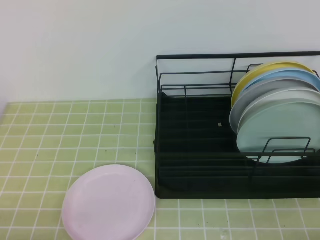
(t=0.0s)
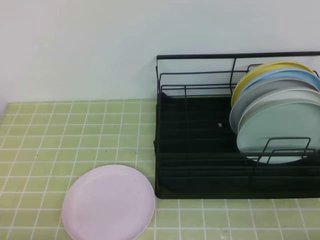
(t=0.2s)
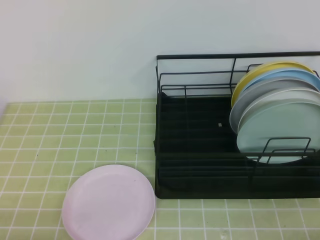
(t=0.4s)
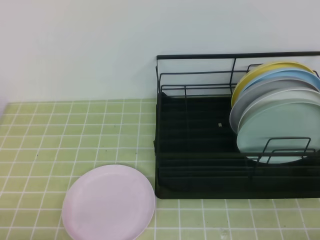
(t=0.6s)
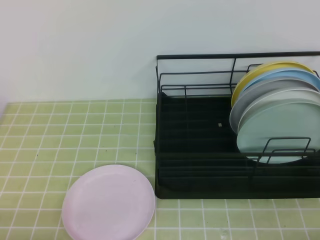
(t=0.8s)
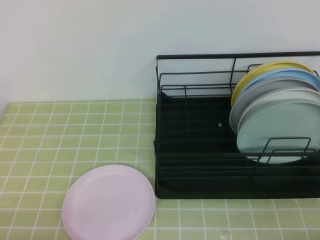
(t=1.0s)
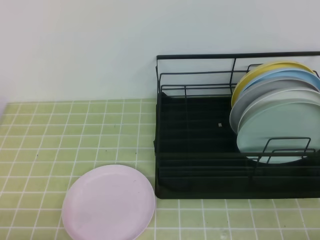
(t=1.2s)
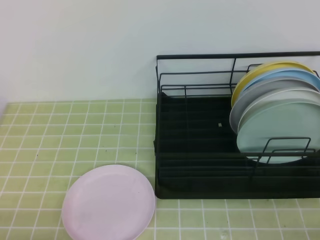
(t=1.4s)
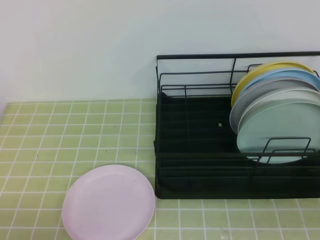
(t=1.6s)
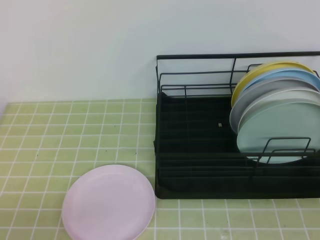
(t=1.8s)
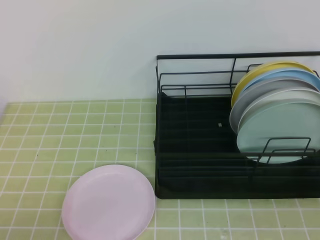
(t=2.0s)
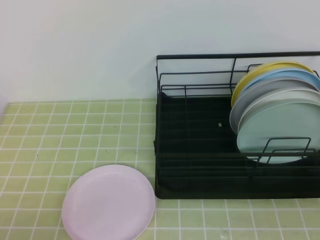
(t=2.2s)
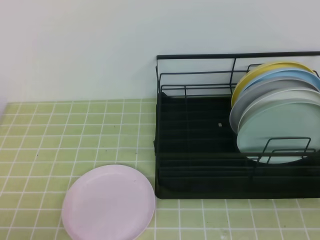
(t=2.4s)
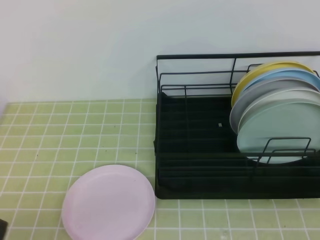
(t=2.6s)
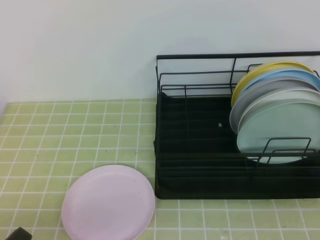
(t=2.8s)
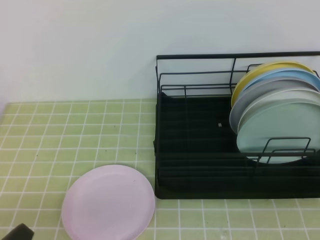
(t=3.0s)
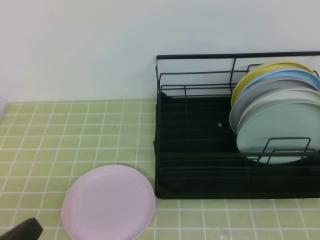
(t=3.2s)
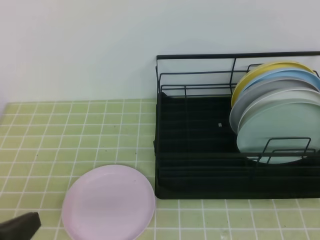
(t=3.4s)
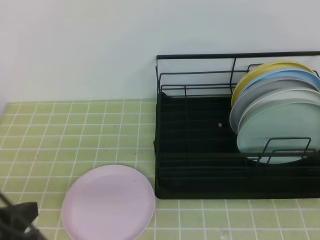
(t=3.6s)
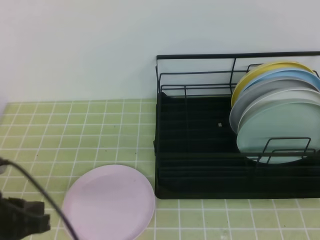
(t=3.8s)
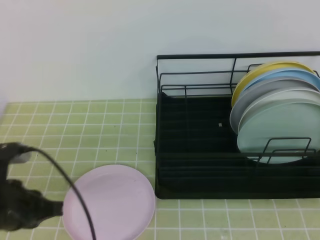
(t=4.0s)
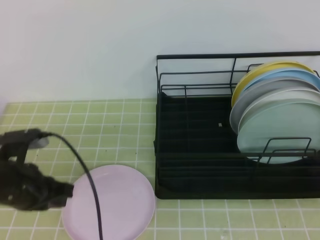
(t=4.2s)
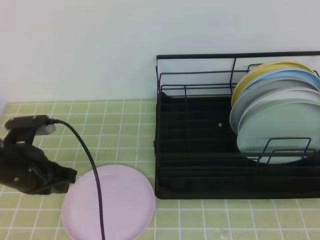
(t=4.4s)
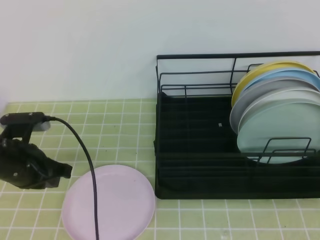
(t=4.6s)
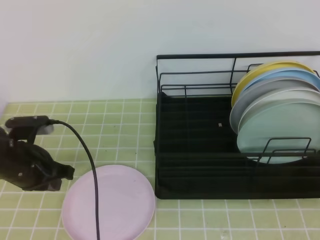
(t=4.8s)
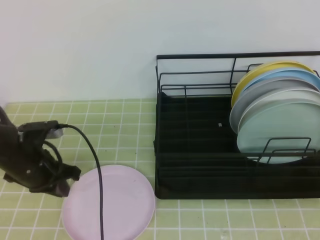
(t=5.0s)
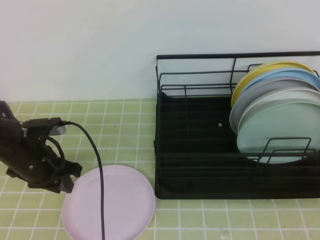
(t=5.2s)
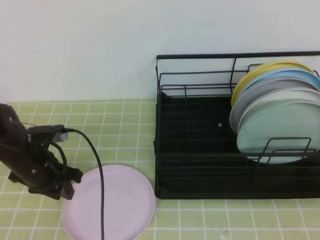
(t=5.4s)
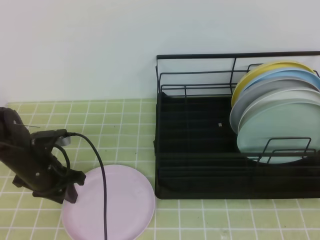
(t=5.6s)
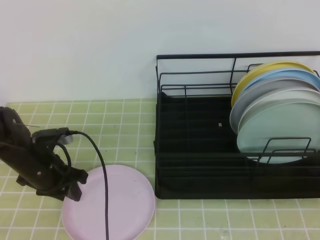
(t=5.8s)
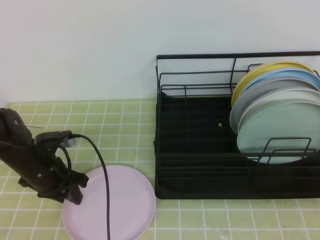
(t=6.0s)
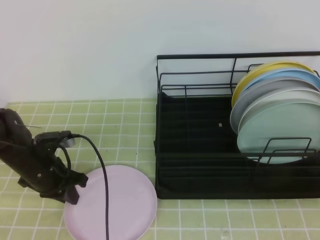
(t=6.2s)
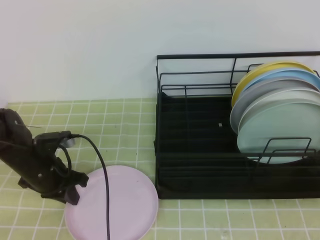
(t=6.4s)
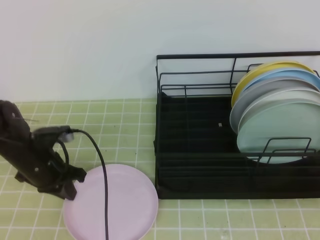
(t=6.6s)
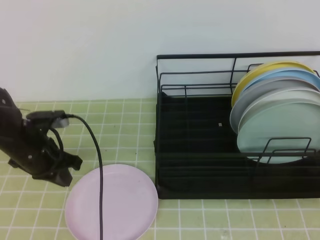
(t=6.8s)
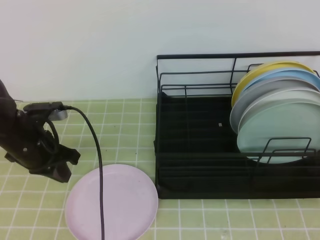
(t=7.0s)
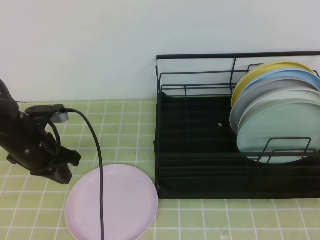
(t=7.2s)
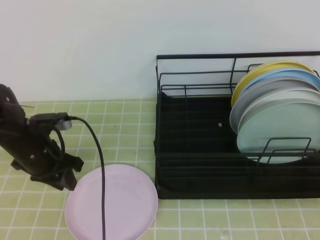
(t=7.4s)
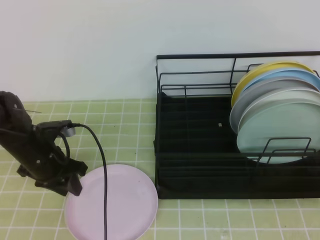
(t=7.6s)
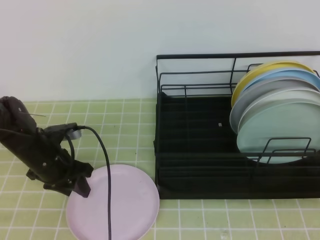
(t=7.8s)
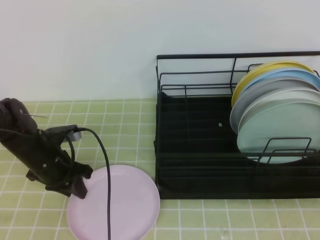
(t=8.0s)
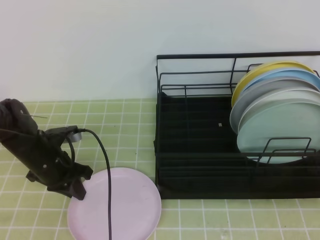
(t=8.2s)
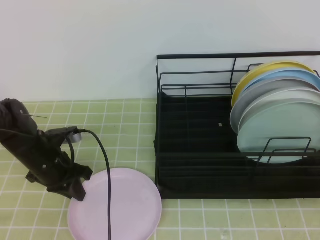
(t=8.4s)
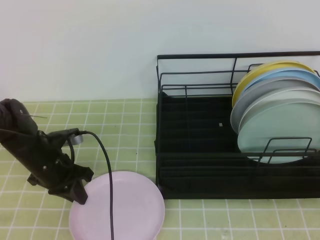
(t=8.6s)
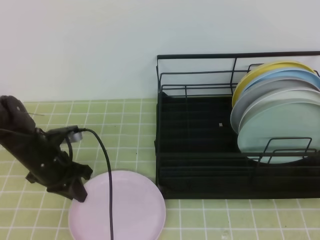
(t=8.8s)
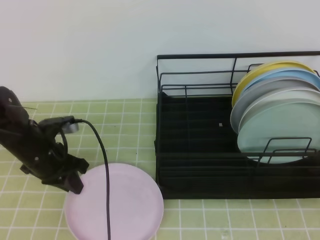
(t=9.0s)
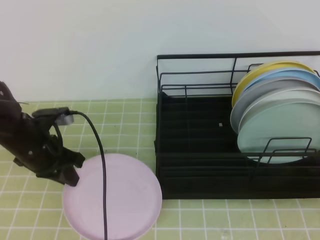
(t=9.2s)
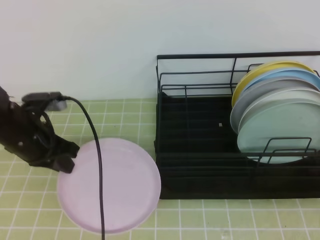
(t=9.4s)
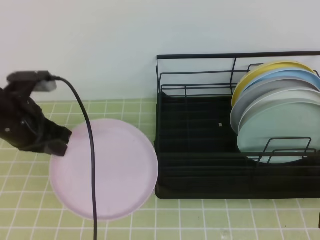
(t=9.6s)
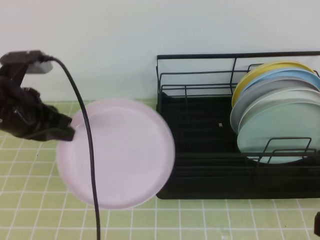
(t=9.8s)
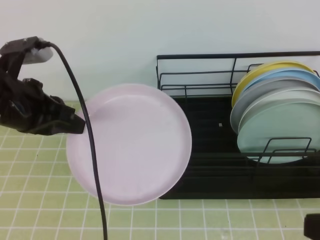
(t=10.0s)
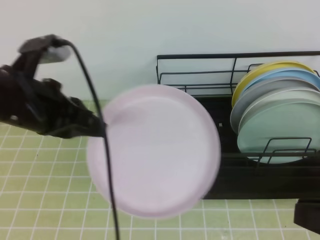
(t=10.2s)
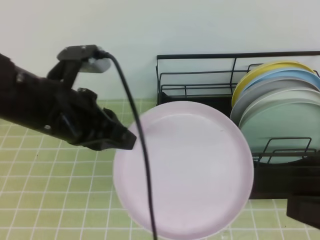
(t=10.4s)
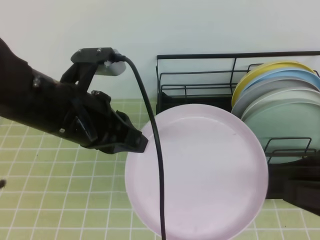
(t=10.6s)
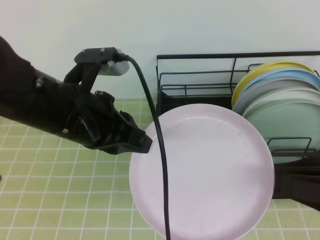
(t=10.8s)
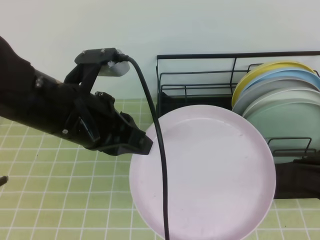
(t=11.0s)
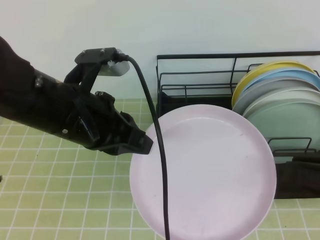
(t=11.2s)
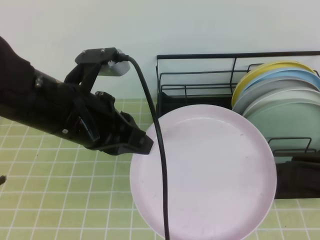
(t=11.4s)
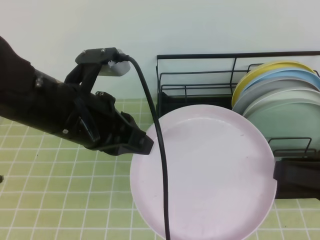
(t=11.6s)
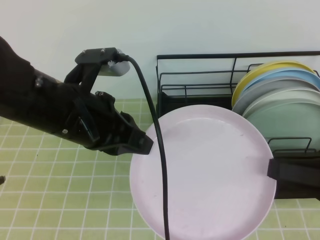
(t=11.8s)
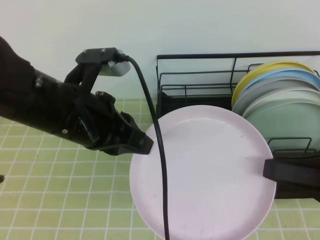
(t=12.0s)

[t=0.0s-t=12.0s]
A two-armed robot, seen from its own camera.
Step, t=0.0s to t=7.0s: Left grab the pink plate.
t=3.0s to t=4.4s: The left gripper shifts roughly 20 cm forward.
t=4.4s to t=6.0s: The left gripper moves downward and forward, some 10 cm, and opens up.
t=6.0s to t=7.6s: The left gripper closes, then reopens.
t=7.6s to t=9.0s: The left gripper closes.
t=9.0s to t=10.4s: The left gripper heads upward, backward and to the right, covering about 20 cm, while the right gripper opens its fingers.
t=10.4s to t=12.0s: The right gripper shifts approximately 5 cm forward.

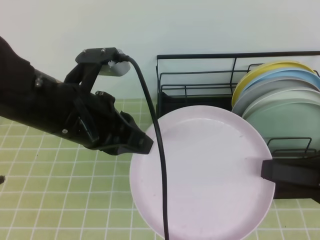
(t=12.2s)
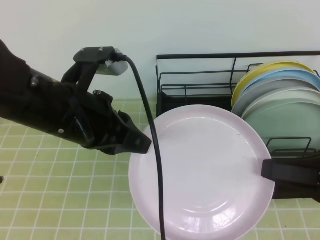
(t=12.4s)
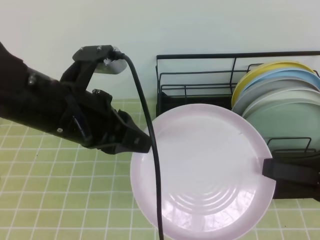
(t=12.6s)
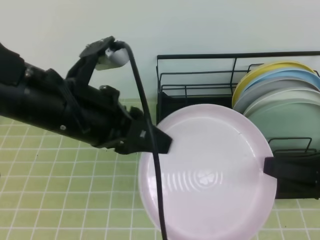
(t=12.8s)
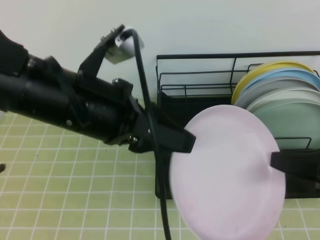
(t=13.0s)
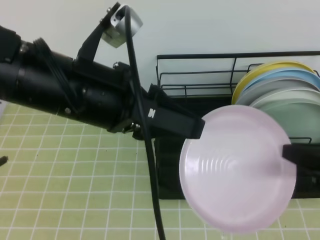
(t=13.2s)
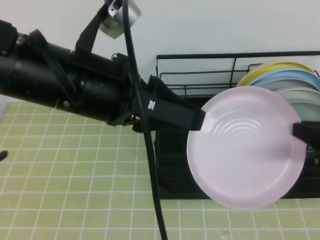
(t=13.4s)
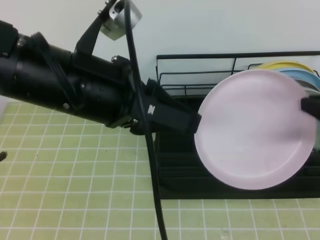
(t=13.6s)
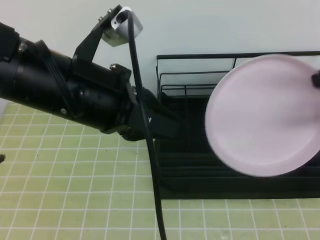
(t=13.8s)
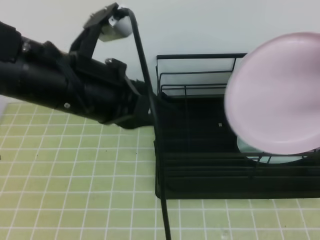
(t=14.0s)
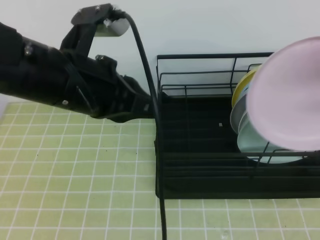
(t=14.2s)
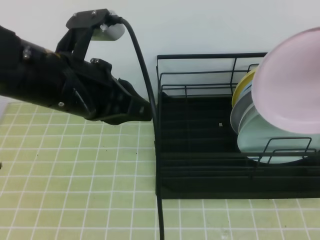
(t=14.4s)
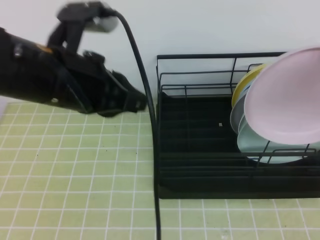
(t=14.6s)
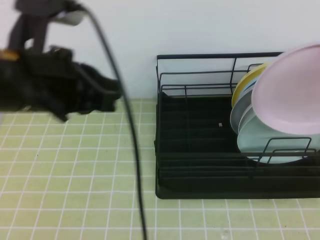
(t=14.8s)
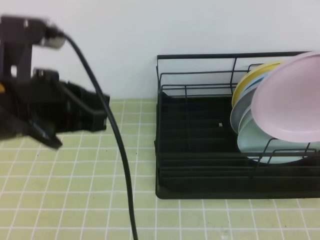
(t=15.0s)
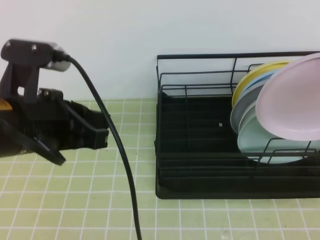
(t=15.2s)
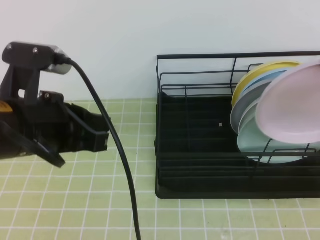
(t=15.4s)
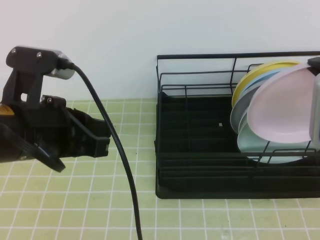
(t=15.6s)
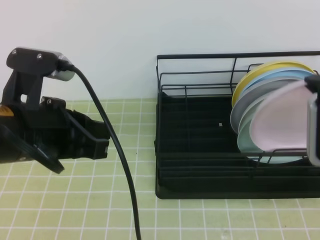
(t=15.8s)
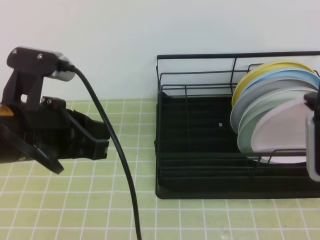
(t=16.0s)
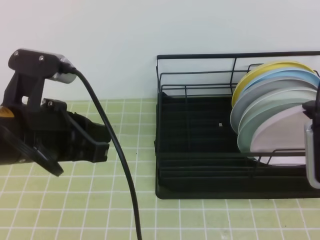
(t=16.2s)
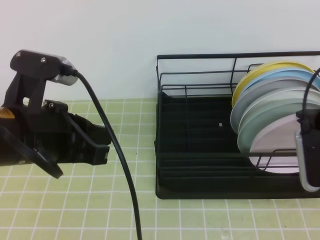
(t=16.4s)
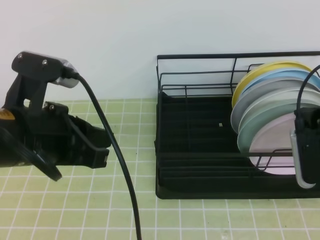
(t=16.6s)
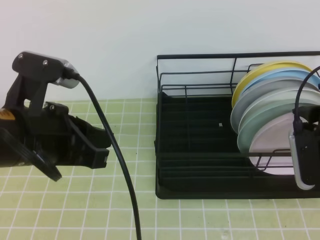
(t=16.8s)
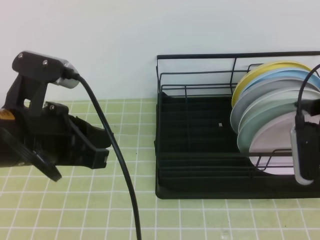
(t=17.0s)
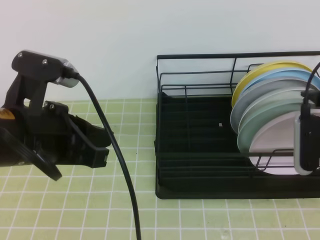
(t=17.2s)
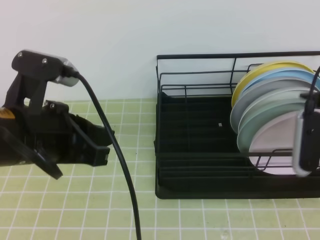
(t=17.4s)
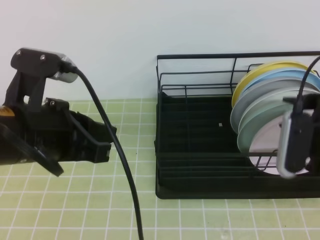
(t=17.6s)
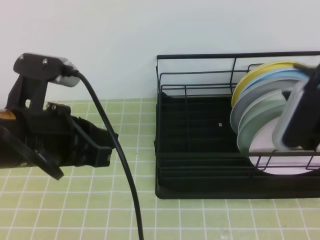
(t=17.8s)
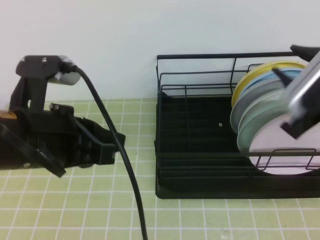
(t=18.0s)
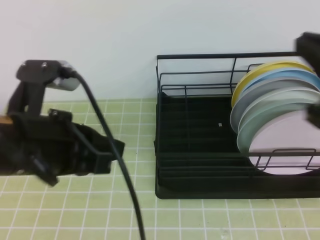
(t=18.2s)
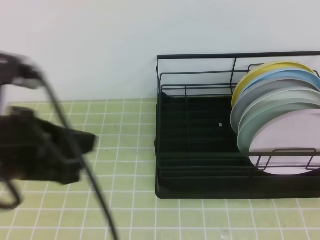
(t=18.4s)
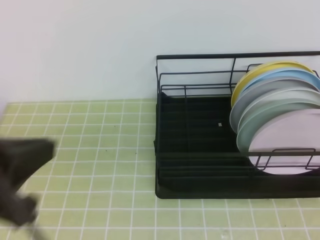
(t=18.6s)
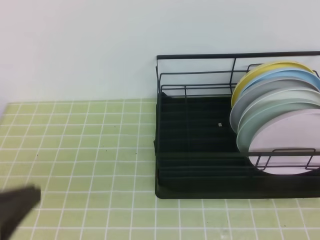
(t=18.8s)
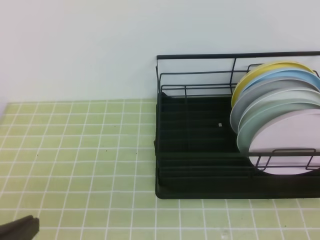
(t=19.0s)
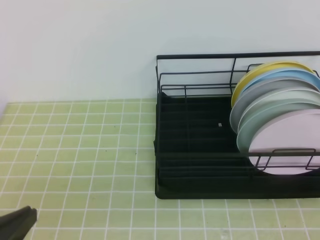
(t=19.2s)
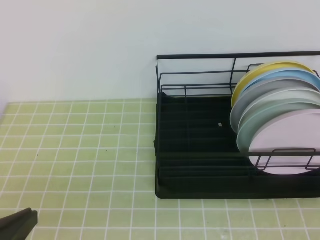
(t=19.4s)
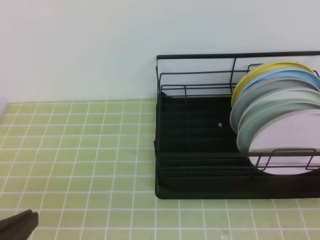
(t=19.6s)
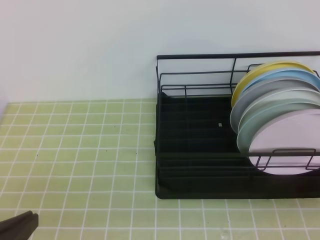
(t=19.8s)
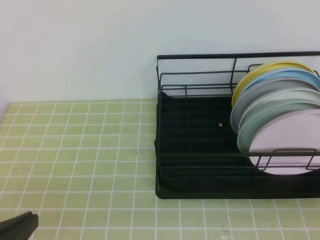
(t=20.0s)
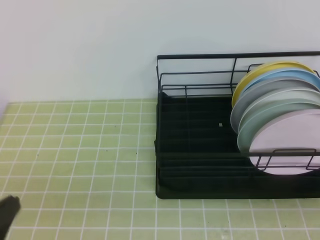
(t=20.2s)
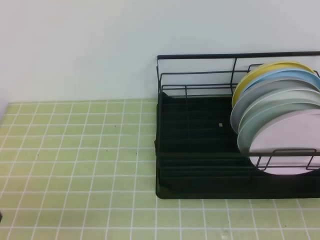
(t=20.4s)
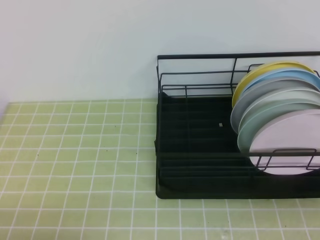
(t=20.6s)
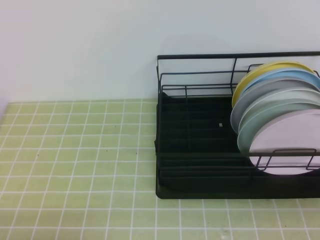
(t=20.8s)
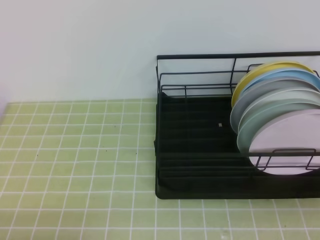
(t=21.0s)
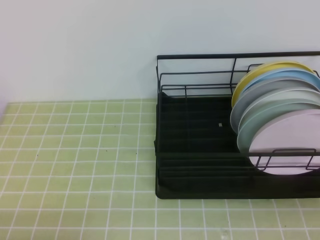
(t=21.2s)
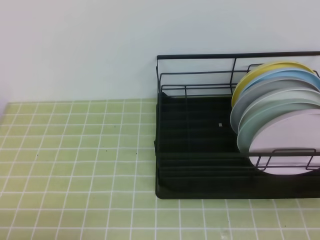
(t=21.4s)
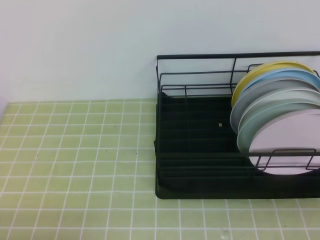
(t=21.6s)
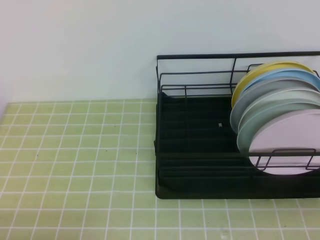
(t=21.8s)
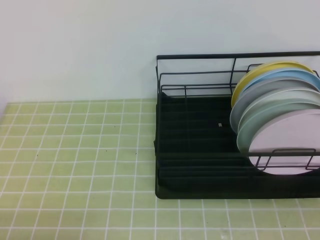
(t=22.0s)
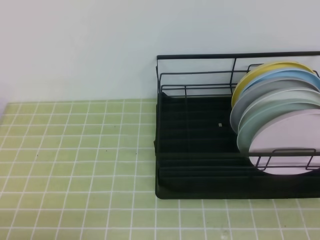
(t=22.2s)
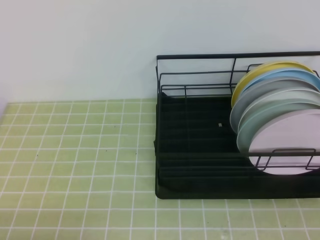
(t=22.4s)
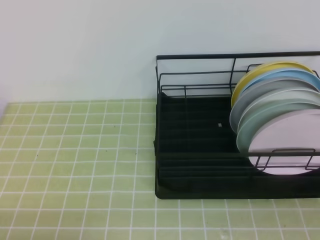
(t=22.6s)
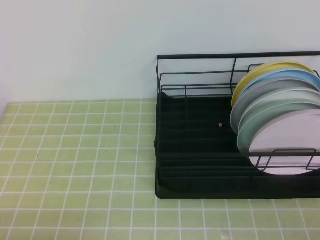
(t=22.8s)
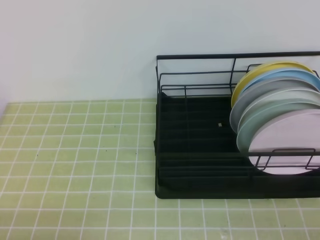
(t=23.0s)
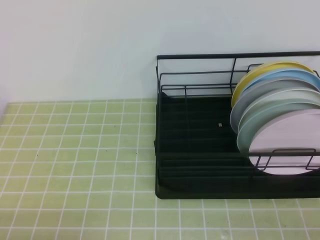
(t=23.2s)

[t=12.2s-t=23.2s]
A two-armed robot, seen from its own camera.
t=12.2s to t=13.8s: The right gripper goes roughly 10 cm upward and forward, and closes. Meanwhile the left gripper shifts by roughly 5 cm, and opens up.
t=13.8s to t=15.4s: The left gripper moves to the left, approximately 5 cm, and closes.
t=15.4s to t=17.0s: The right gripper is displaced downward by about 10 cm, and opens.
t=17.0s to t=18.4s: The right gripper goes approximately 20 cm upward and backward, and closes its fingers.
t=18.4s to t=20.0s: The right gripper is displaced downward by about 20 cm, while the left gripper moves downward, backward and to the left, roughly 15 cm.
t=20.0s to t=21.6s: The left gripper goes approximately 10 cm downward.
